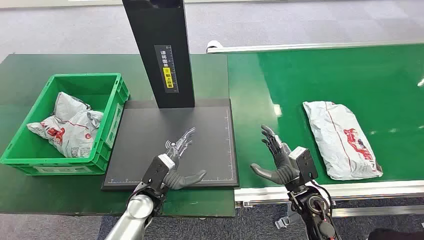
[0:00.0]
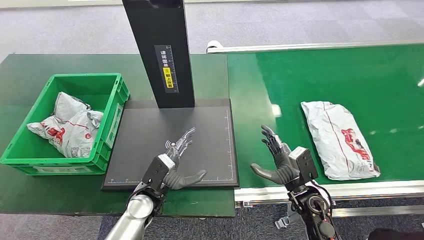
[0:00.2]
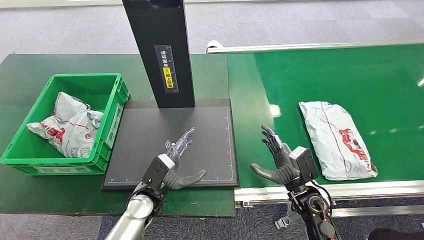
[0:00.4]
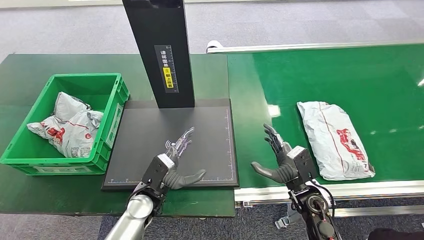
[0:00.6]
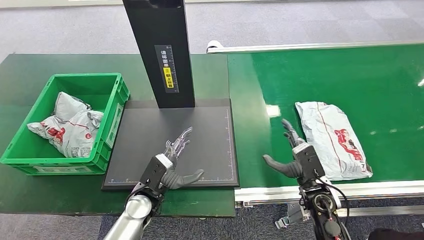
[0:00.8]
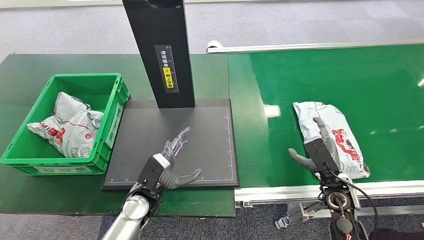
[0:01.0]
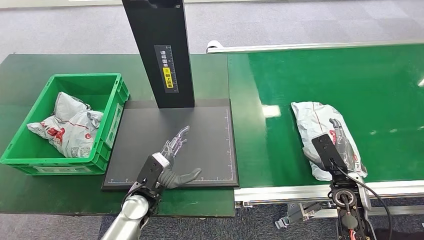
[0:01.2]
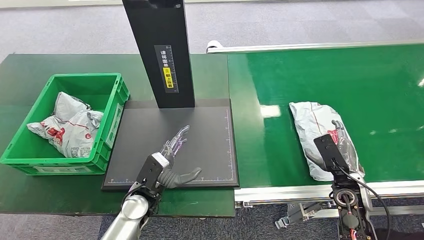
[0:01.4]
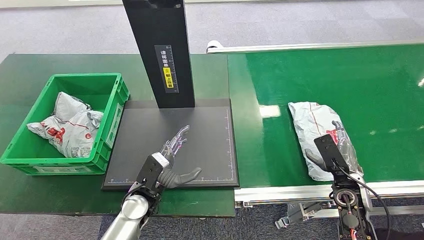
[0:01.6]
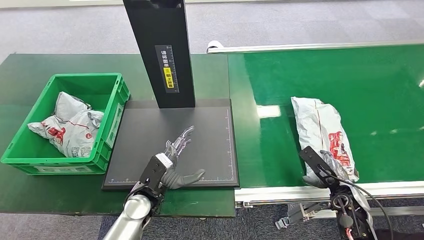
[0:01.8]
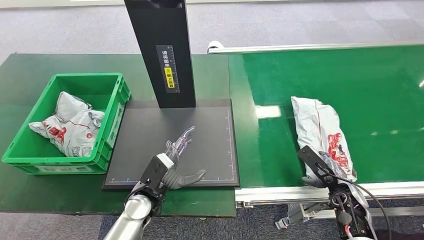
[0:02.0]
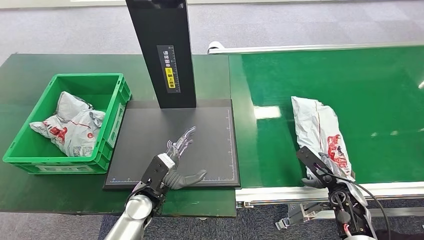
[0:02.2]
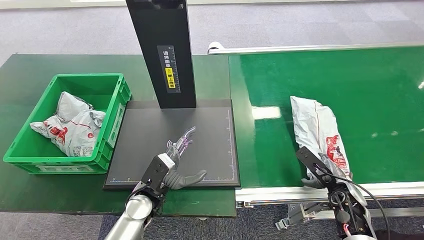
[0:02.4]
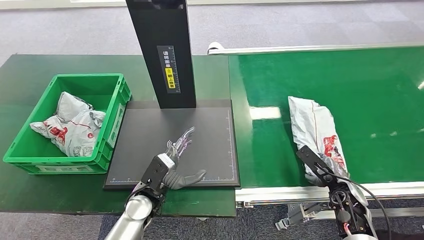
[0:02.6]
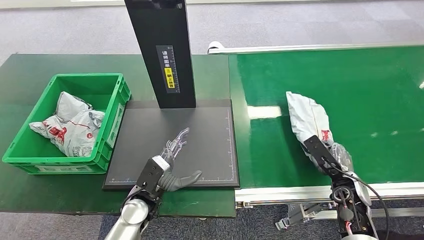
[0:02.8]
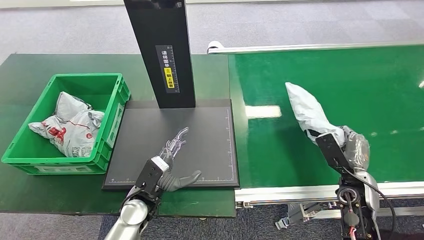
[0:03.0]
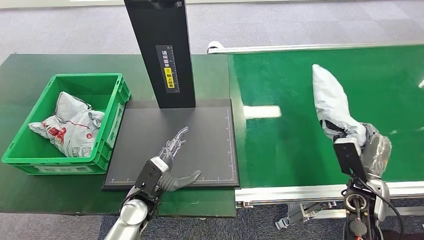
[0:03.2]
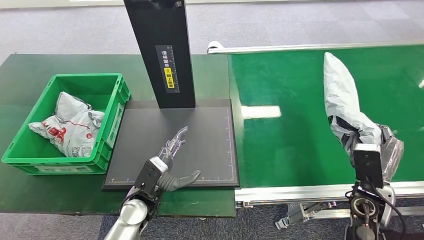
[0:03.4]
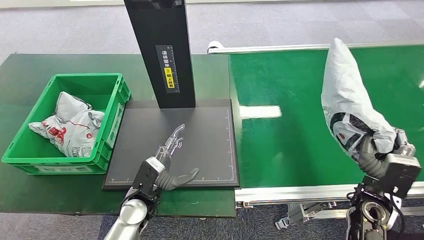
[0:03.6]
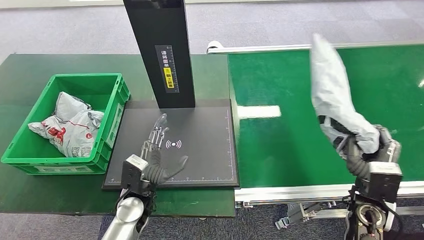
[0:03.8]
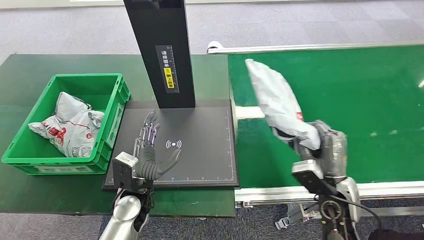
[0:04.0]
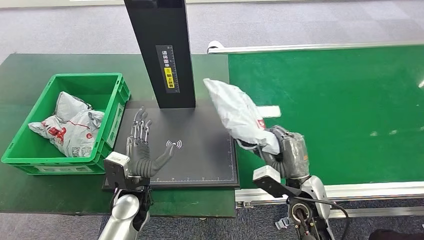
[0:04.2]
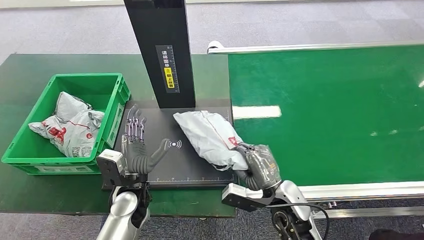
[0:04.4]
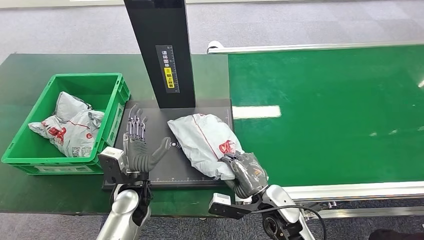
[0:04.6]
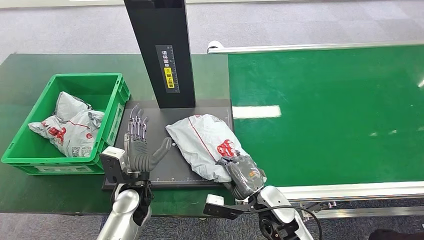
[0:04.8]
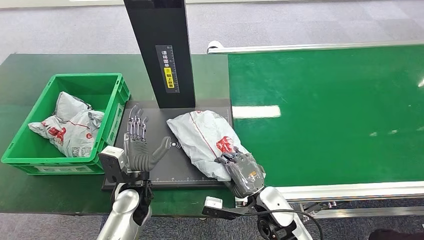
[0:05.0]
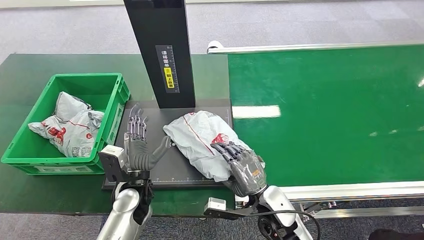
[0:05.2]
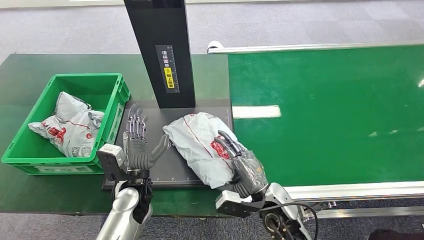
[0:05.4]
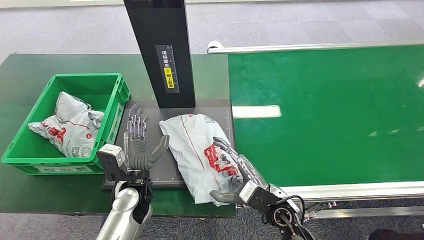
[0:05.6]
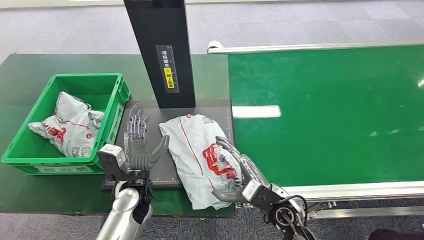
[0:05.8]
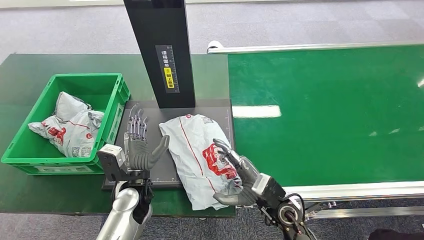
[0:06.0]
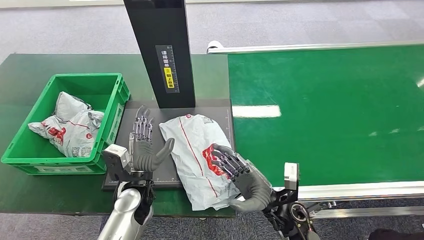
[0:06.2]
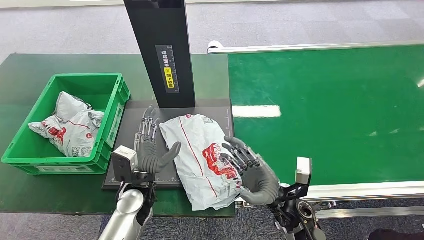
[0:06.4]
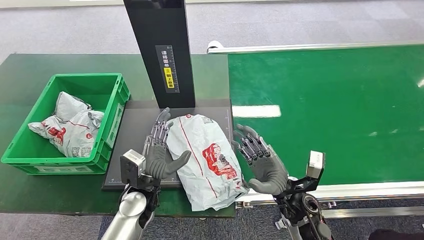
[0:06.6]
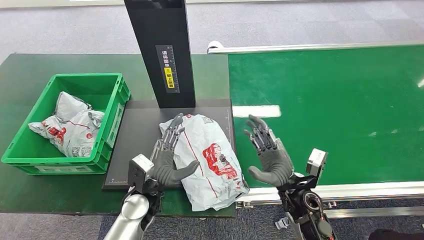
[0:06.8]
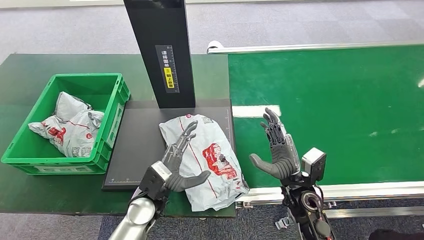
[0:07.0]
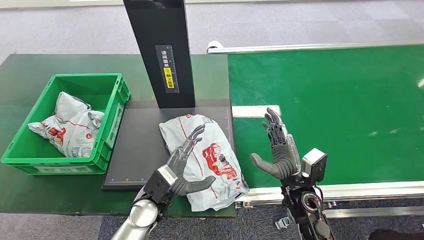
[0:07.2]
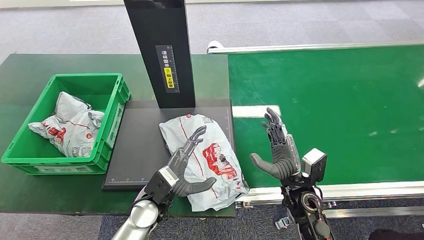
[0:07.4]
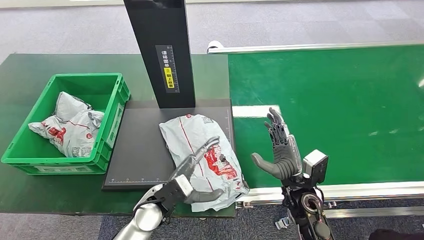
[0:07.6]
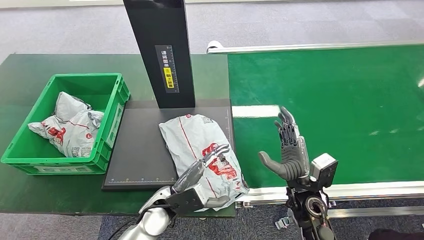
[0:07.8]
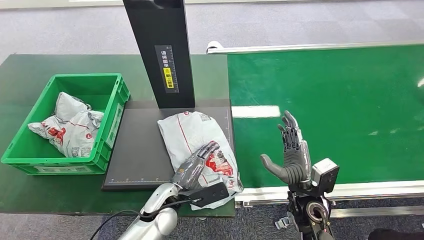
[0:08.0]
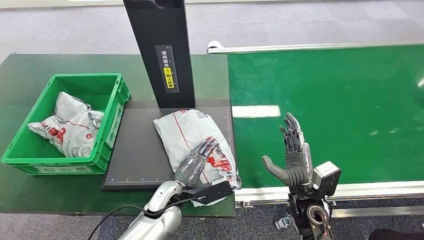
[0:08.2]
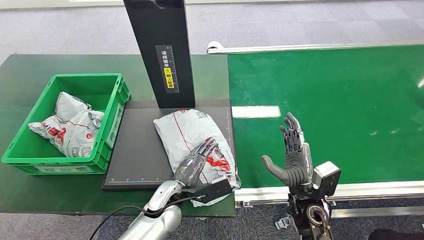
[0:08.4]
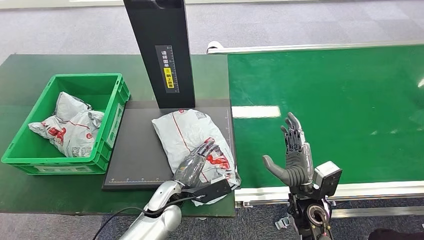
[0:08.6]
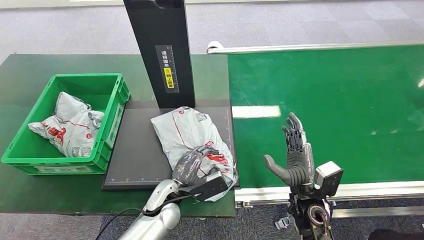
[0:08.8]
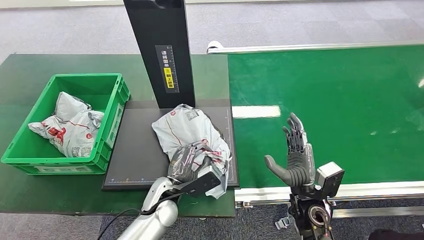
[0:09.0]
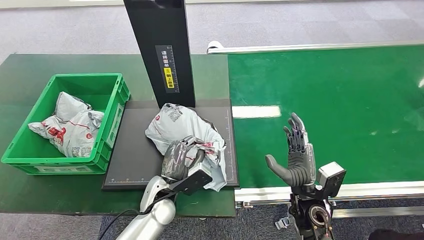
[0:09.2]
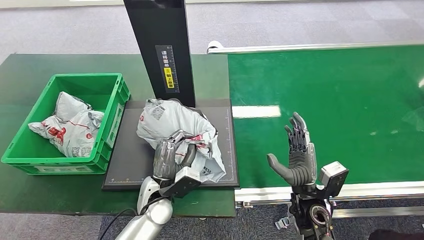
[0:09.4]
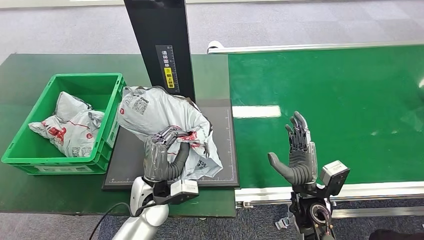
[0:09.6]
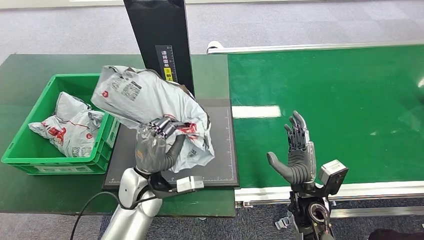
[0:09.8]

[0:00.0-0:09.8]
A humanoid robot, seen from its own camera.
Step, 0:00.0 to 0:03.2: Pick up the package from the conveyor belt.
Step, 0:03.6 to 0:06.4: Place the package onto the inbound machine.
Step, 0:06.6 to 0:09.6: Pick up the package from the inbound machine.
0:02.8 to 0:04.2: The right hand shifts roughly 15 cm to the left.
0:04.2 to 0:05.6: The right hand goes roughly 5 cm to the left.
0:05.6 to 0:07.0: The right hand moves to the right, roughly 5 cm.
0:08.4 to 0:09.8: The left hand goes roughly 10 cm upward.

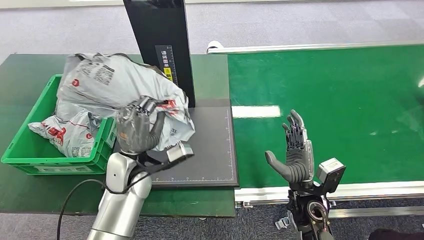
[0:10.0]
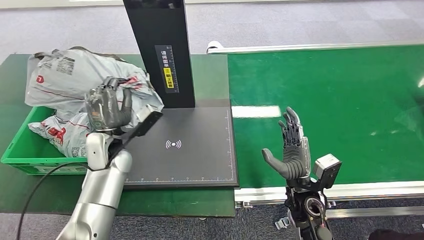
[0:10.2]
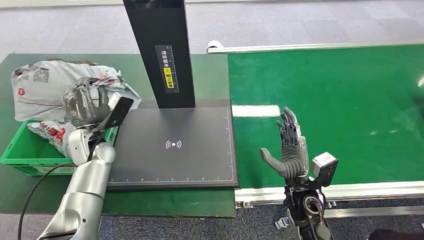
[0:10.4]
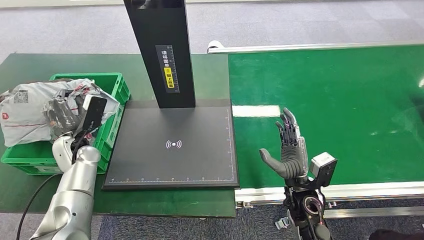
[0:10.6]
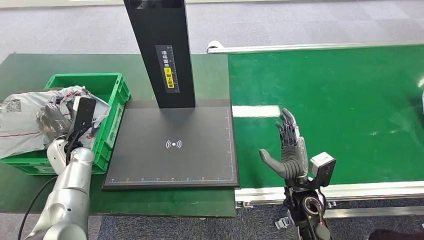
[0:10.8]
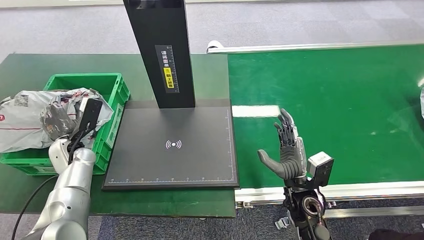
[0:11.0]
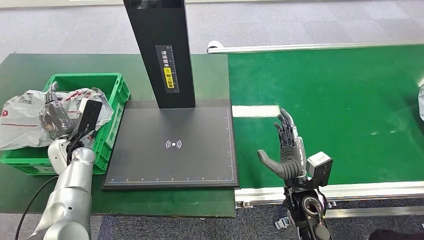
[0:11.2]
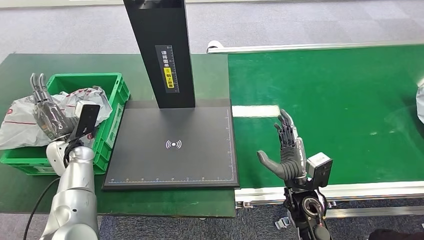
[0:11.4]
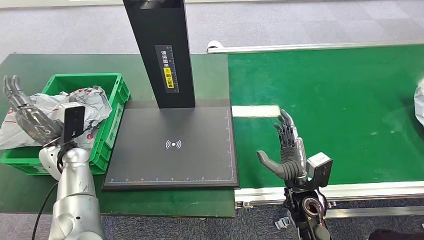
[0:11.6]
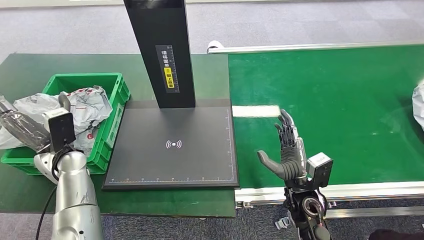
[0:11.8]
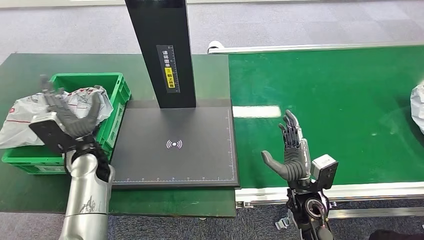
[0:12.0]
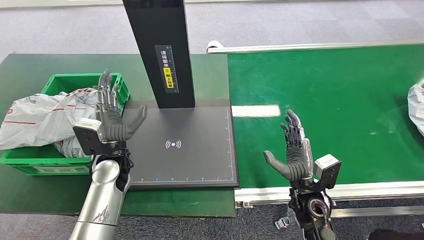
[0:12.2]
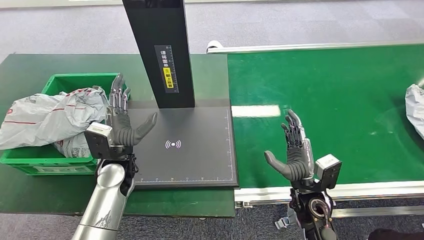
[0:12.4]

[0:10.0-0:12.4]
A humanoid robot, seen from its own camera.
Step, 0:10.0 to 0:12.4: Place the package into the parcel locker.
0:11.2 to 0:12.4: The left hand heads to the right, covering some 15 cm.

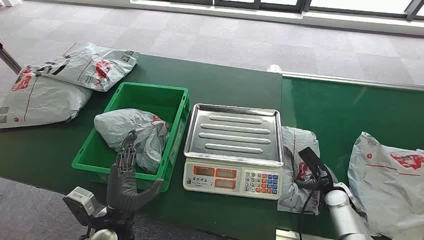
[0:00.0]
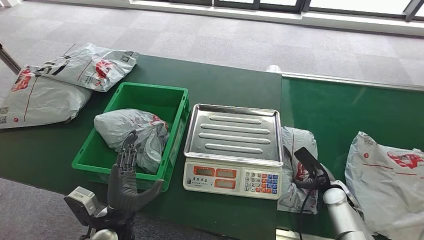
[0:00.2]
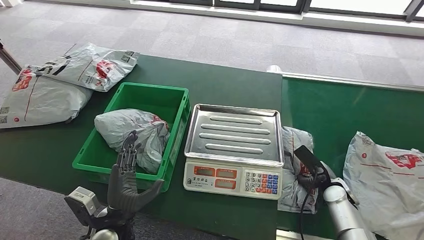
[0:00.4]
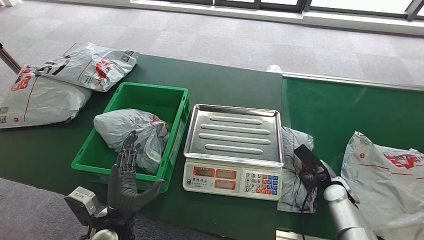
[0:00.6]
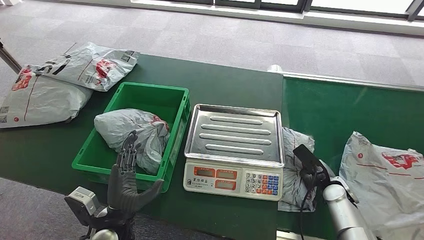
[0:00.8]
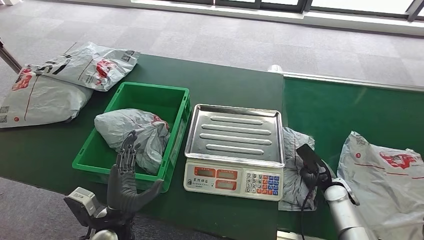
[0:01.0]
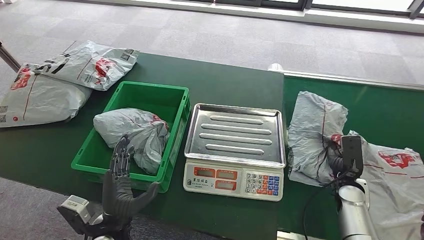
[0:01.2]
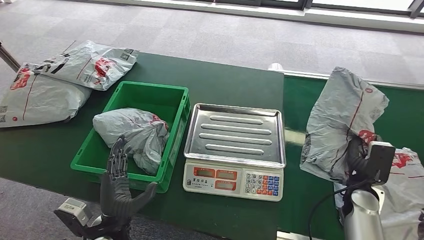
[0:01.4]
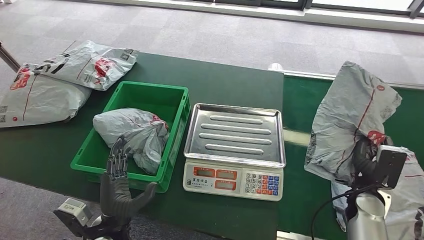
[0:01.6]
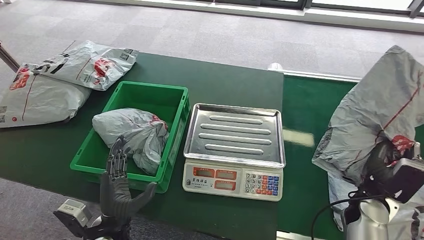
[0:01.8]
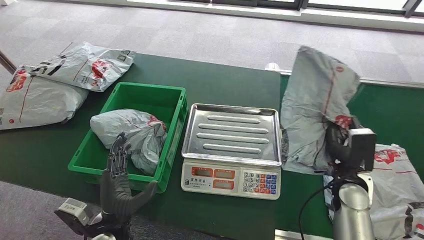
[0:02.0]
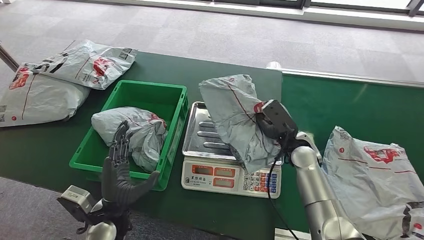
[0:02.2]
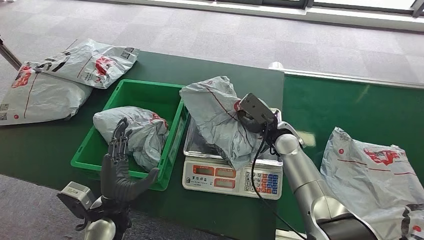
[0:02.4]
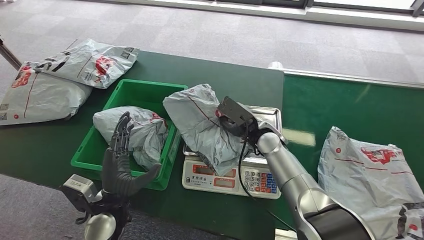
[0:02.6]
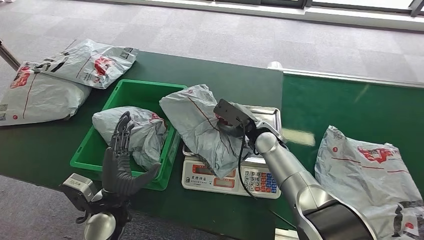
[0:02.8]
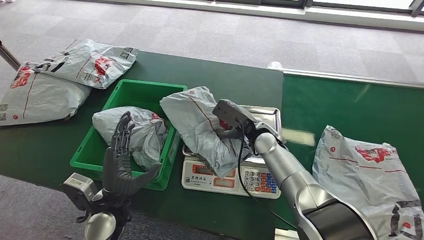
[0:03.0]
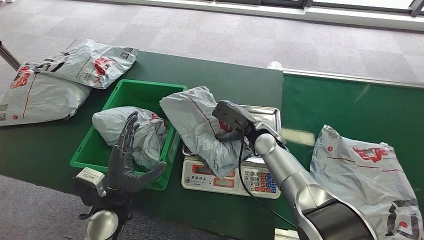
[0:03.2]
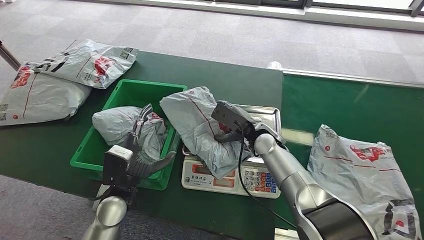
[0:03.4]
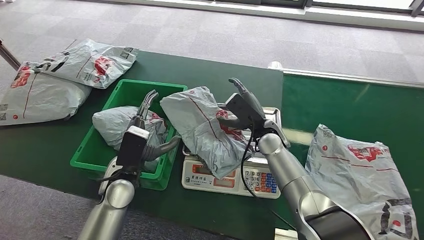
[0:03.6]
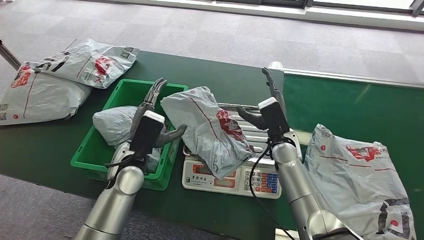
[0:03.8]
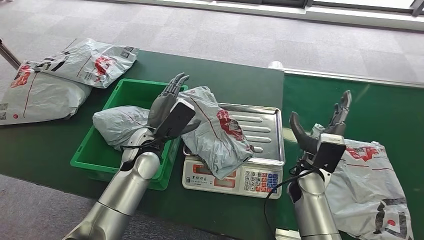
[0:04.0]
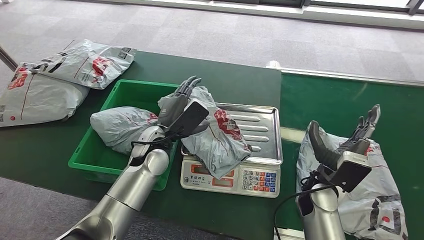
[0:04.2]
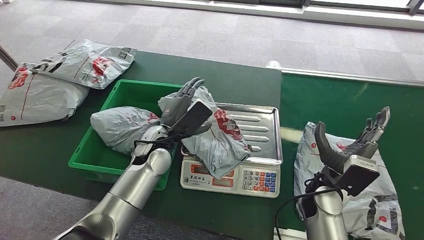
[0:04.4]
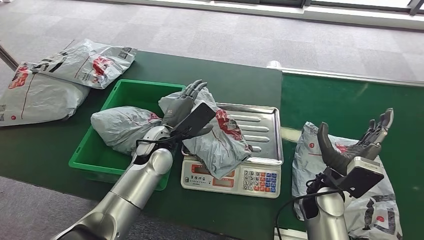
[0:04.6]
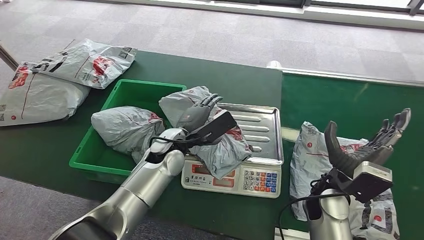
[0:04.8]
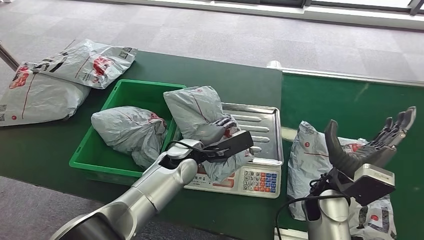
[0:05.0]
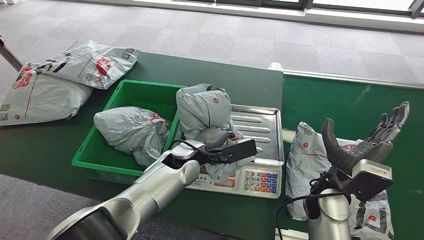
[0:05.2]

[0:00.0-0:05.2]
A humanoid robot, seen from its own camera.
Step, 0:00.0 to 0:01.2: Pick up the package from the conveyor belt.
Step, 0:01.4 to 0:02.6: Place the package onto the inbound machine.
